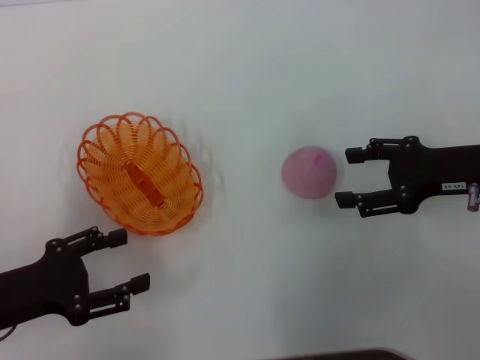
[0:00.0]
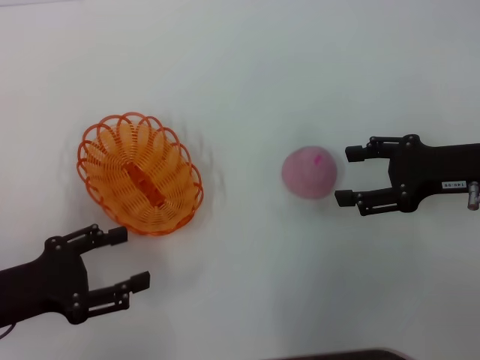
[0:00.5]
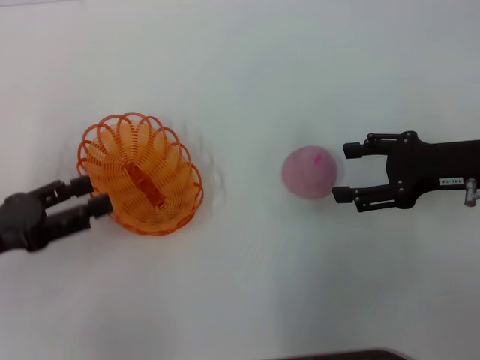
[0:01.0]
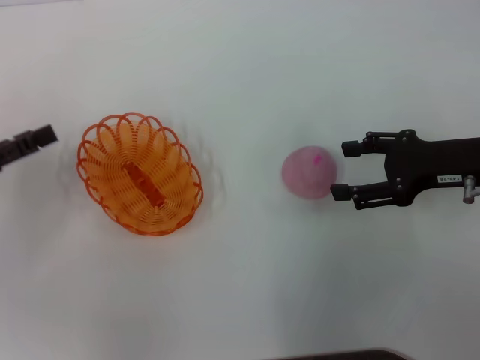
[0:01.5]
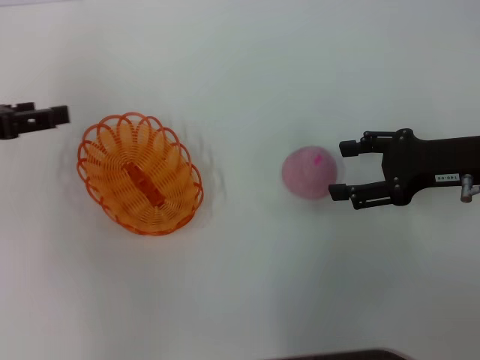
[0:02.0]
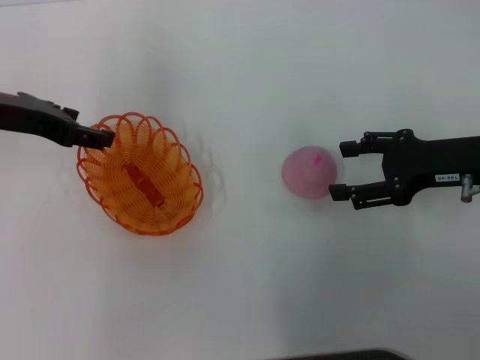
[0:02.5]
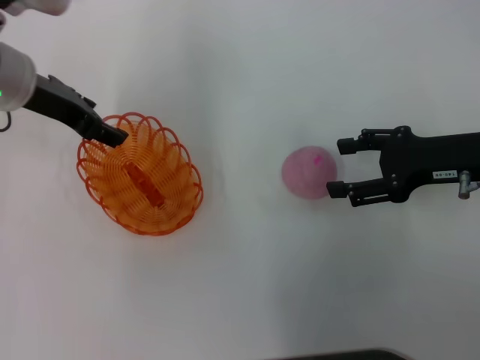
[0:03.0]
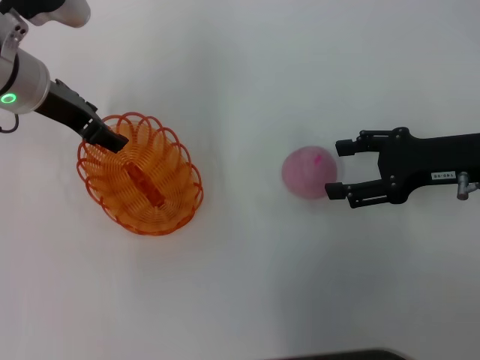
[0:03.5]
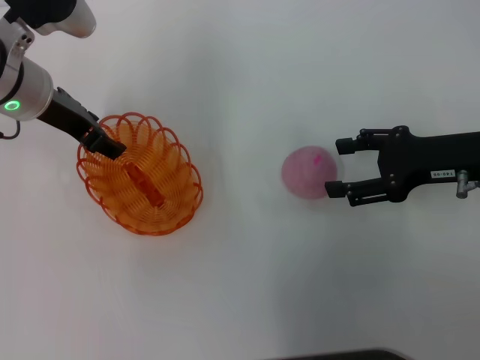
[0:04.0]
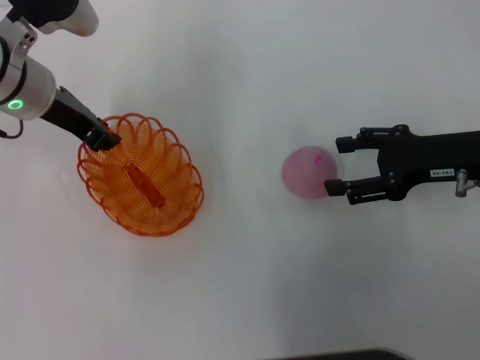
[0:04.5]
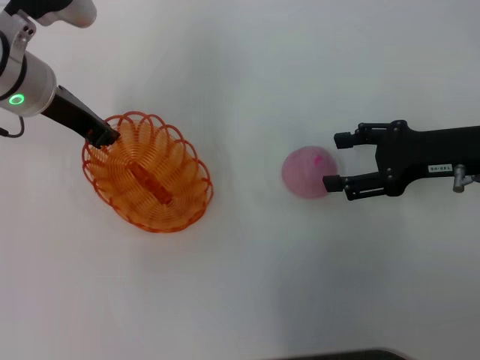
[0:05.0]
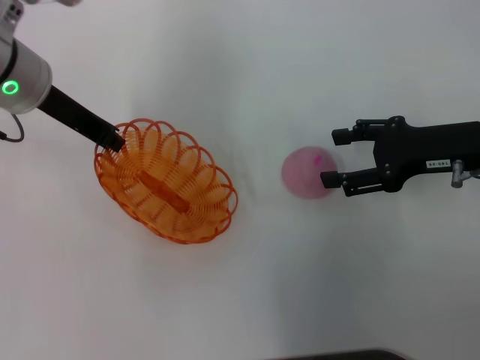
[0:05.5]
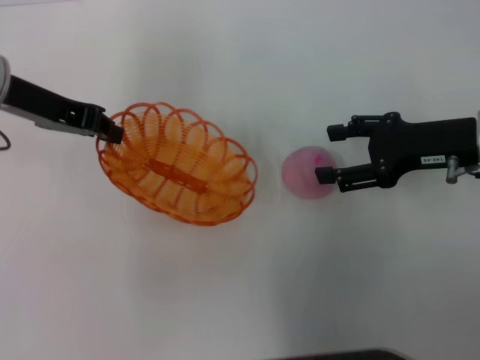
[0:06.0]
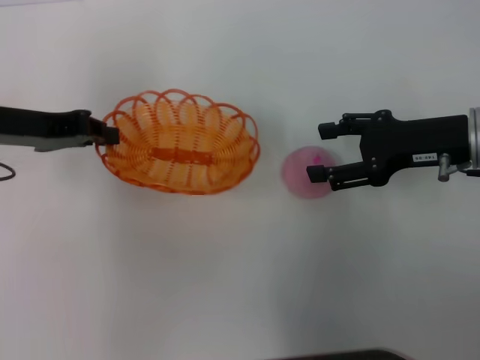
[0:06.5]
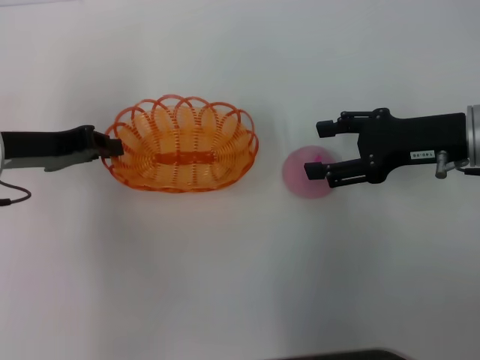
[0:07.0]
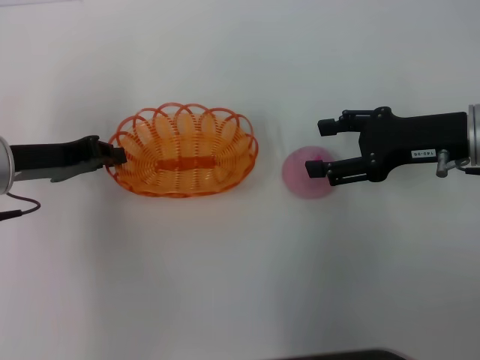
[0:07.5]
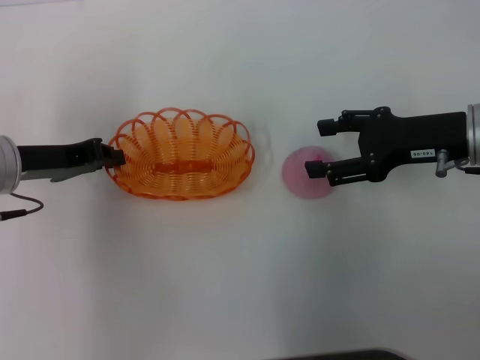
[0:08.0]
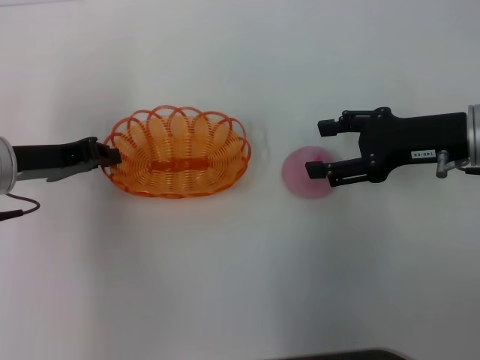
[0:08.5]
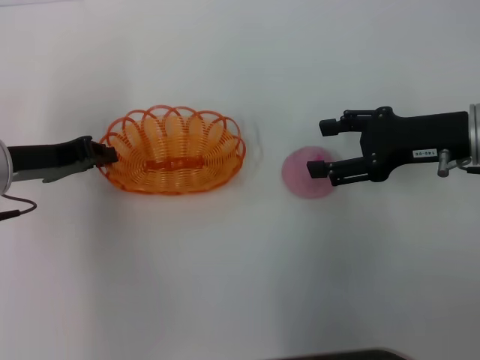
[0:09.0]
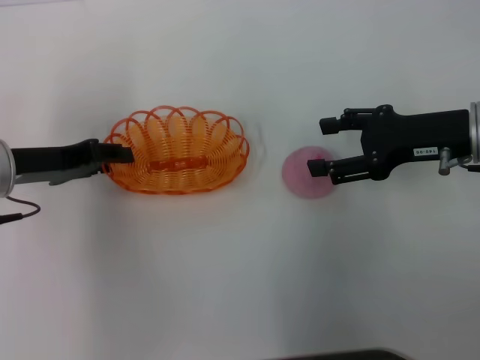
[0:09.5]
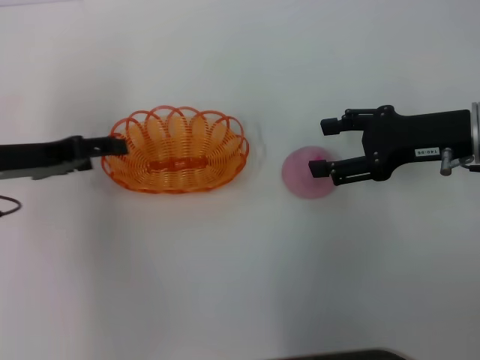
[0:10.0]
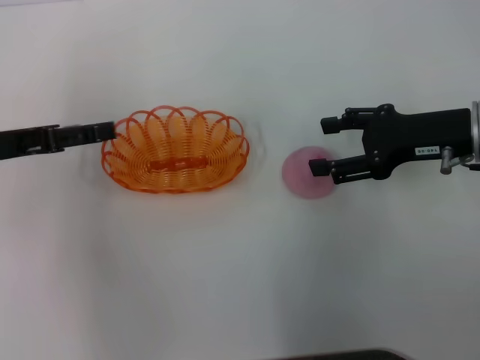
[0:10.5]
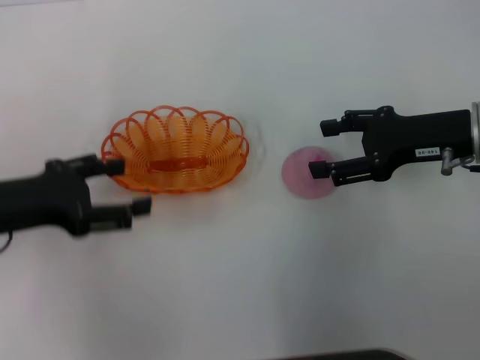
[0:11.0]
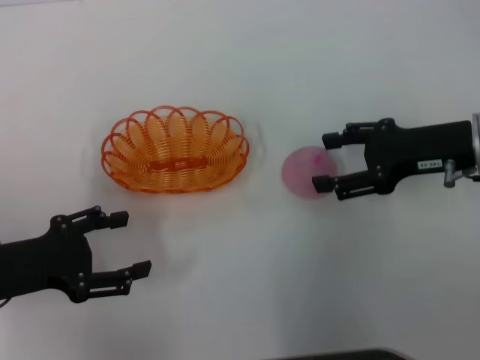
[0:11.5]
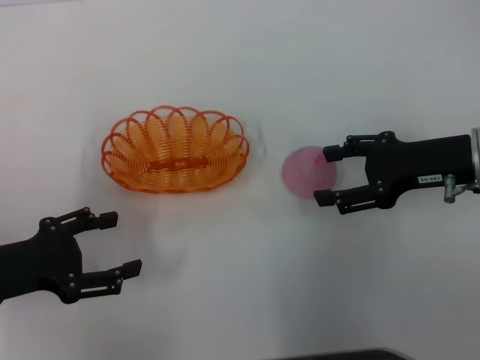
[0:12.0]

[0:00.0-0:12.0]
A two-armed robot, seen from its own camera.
Step, 0:00.0 to 0:05.5: Pick up the basket with the left gripper.
Step, 0:06.0 to 0:09.5: Place the basket in the center of view with the left gripper.
0:00.0 to 0:02.0: The left gripper travels forward and upward by some 15 cm.
0:02.0 to 0:04.0: The left gripper heads to the right and forward, covering some 15 cm.
0:04.0 to 0:06.0: The left gripper ends up approximately 5 cm from where it was, and closes up.
0:06.0 to 0:08.0: The left gripper moves downward, some 10 cm.
0:08.0 to 0:10.0: The left gripper opens.
0:10.0 to 0:12.0: The left gripper shifts approximately 10 cm backward.

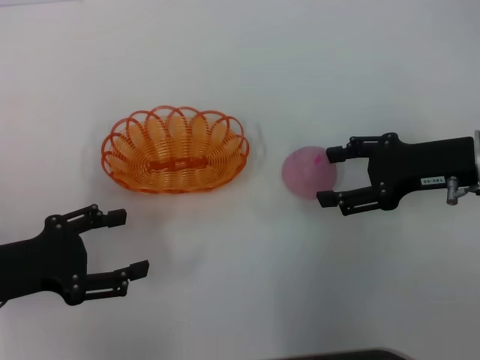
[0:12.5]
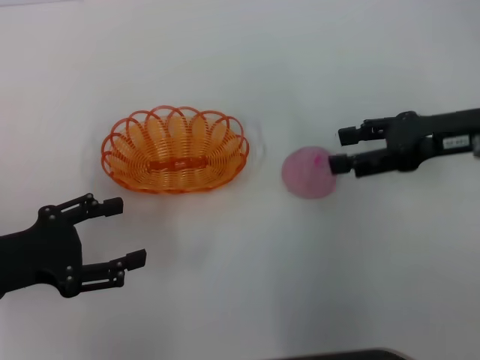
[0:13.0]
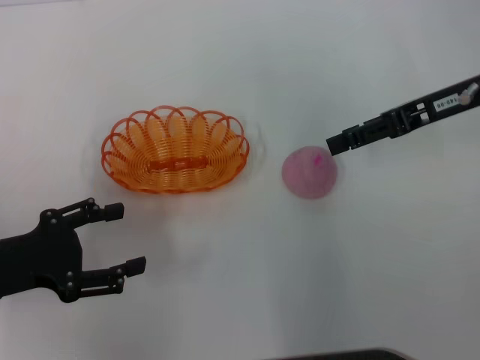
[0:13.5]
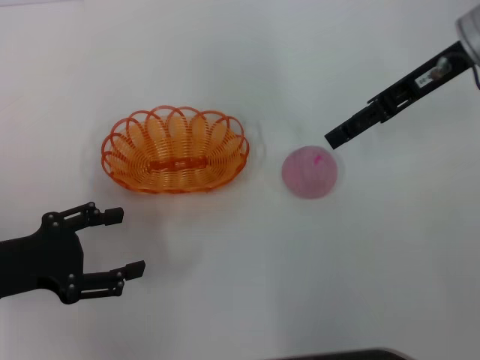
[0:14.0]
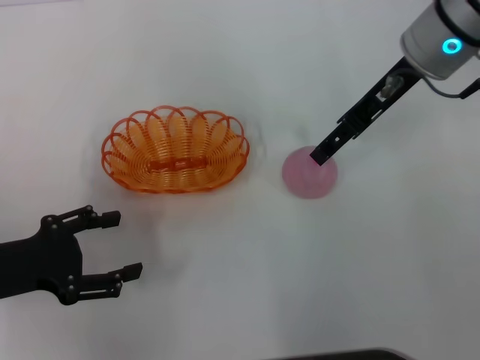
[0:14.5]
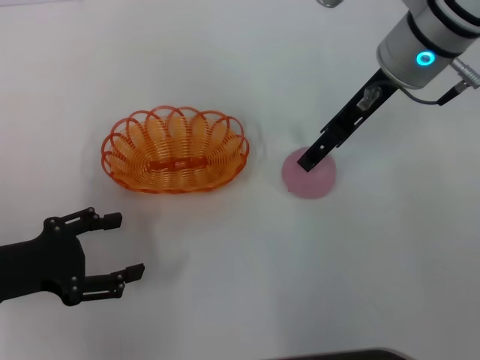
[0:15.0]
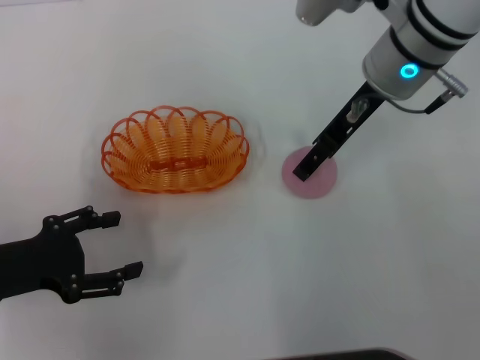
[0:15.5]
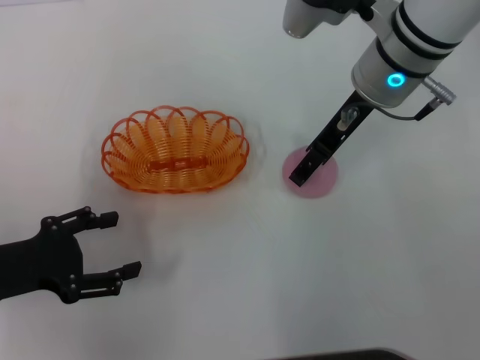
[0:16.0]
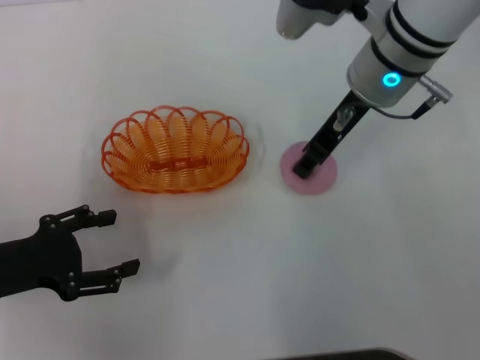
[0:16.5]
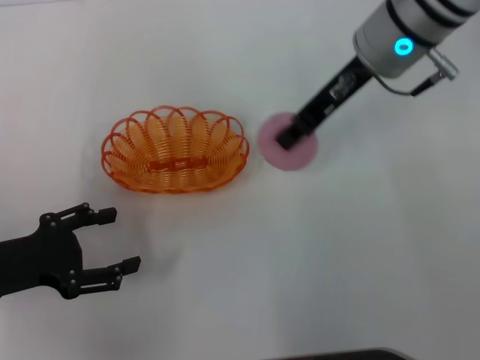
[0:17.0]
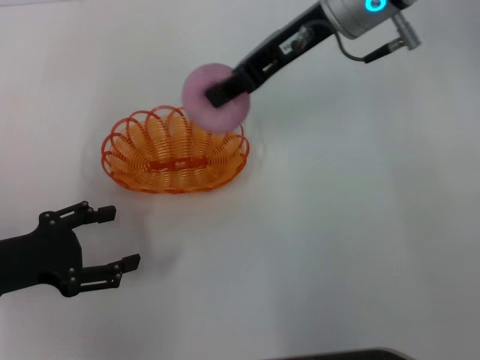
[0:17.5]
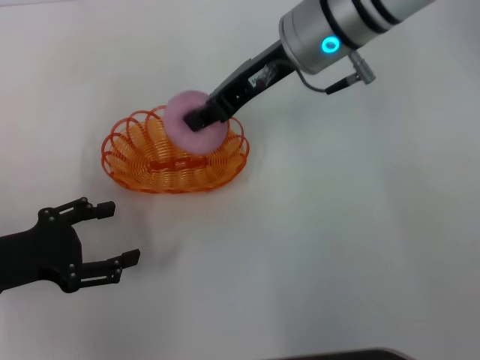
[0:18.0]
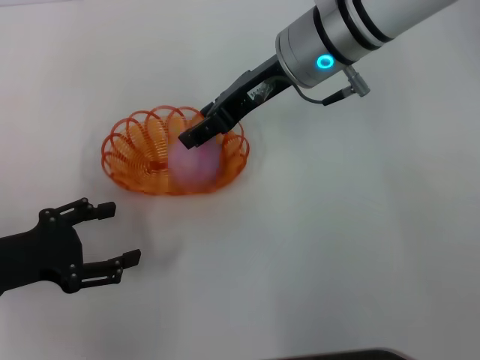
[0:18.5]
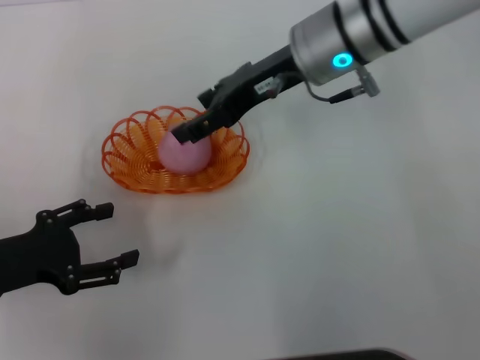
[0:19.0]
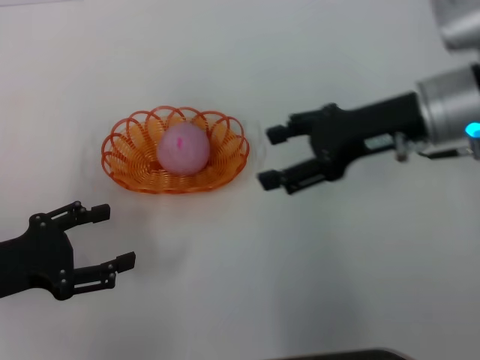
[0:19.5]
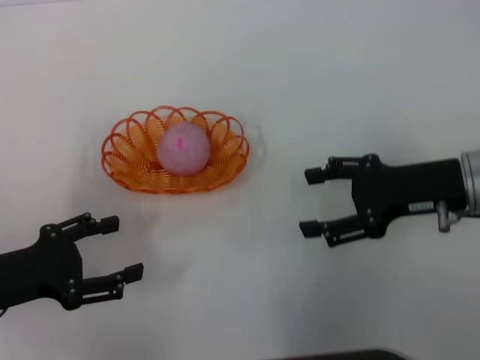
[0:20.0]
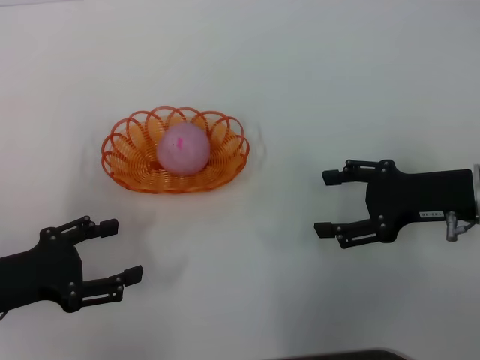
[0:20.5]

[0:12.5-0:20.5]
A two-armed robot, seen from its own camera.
Step, 0:12.5 to 0:16.5: Pick up the peach with the right gripper.
Step, 0:17.5 to 0:18.5: Place the peach into the basket with the right gripper.
0:12.5 to 0:14.5: The right gripper heads forward, upward and to the left, covering approximately 15 cm.
0:14.5 to 0:16.5: The right gripper ends up approximately 5 cm from where it was, and closes.
0:18.5 to 0:20.5: The right gripper heads to the right, backward and downward, covering about 25 cm, and opens up.
